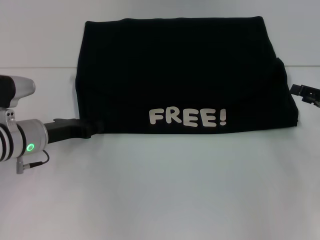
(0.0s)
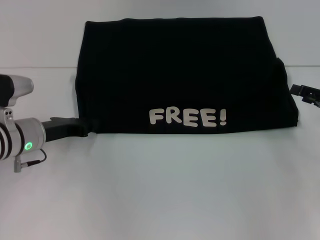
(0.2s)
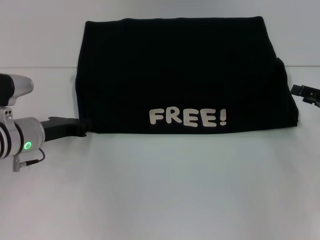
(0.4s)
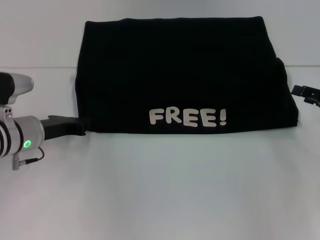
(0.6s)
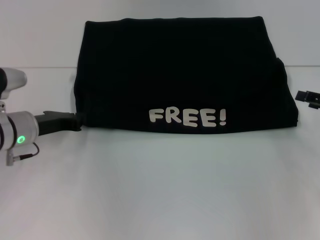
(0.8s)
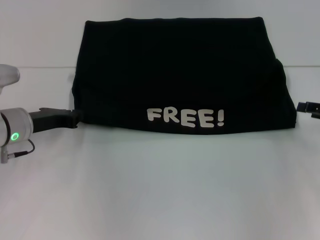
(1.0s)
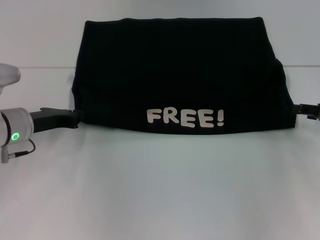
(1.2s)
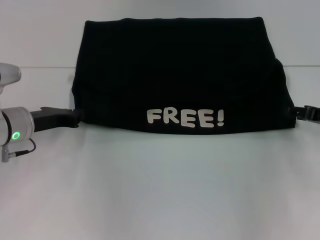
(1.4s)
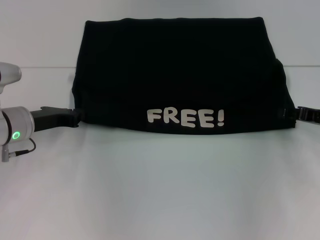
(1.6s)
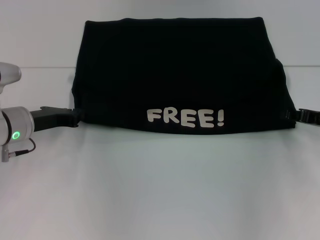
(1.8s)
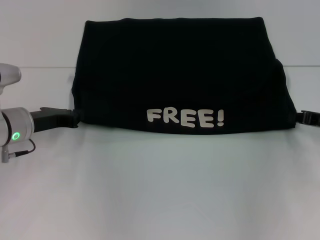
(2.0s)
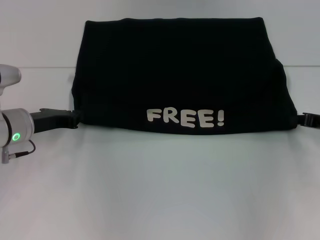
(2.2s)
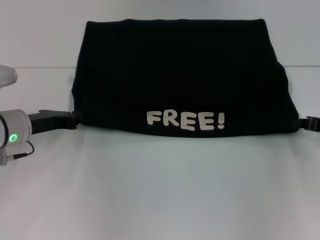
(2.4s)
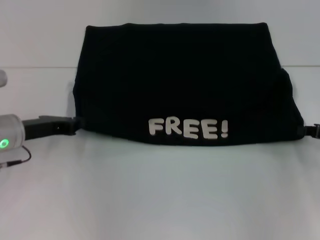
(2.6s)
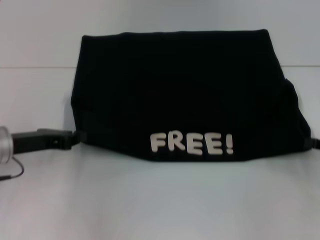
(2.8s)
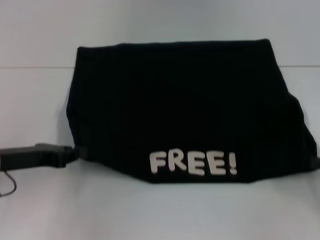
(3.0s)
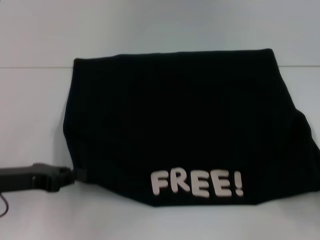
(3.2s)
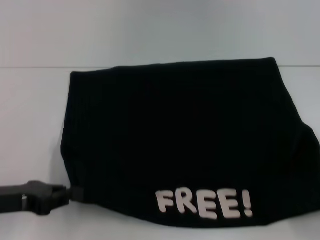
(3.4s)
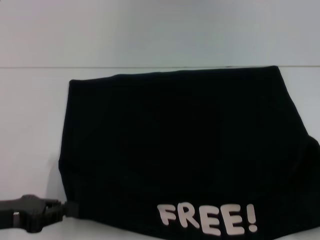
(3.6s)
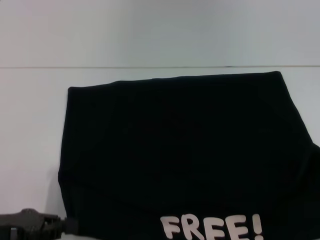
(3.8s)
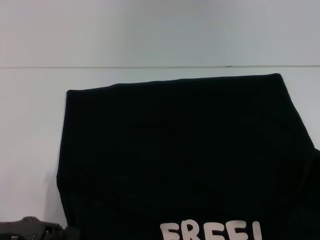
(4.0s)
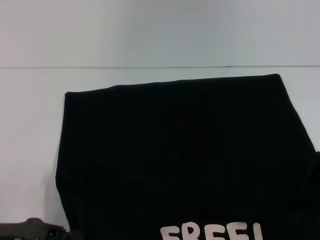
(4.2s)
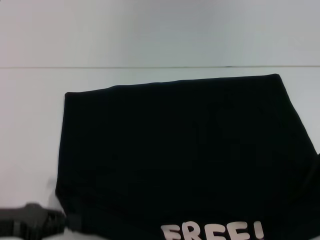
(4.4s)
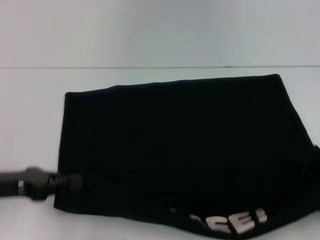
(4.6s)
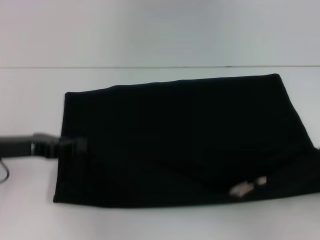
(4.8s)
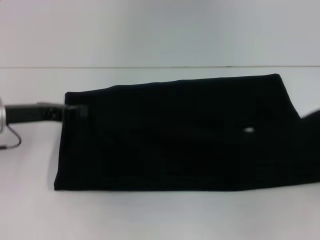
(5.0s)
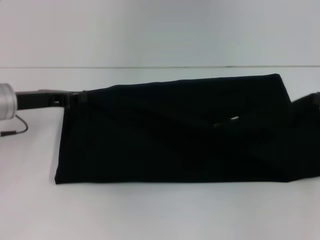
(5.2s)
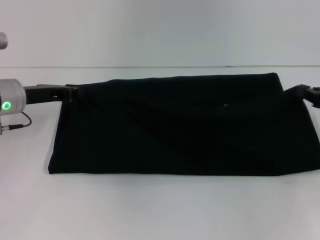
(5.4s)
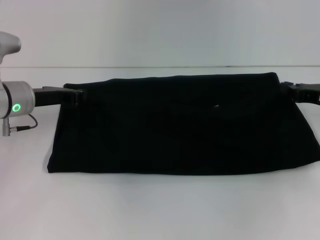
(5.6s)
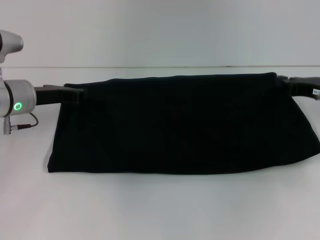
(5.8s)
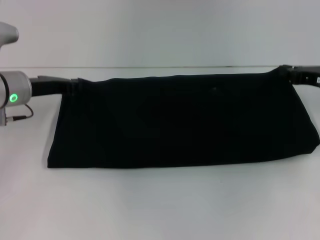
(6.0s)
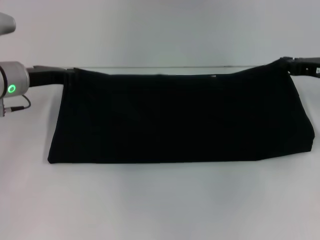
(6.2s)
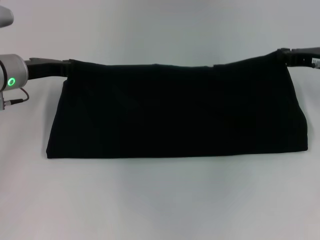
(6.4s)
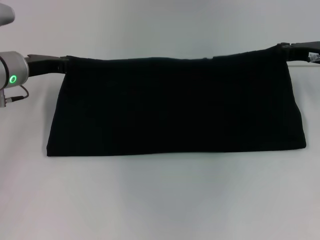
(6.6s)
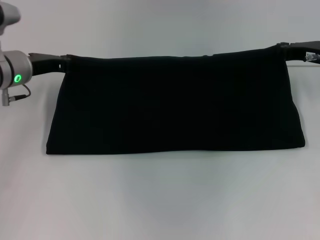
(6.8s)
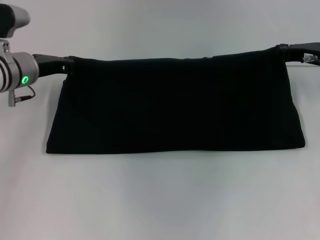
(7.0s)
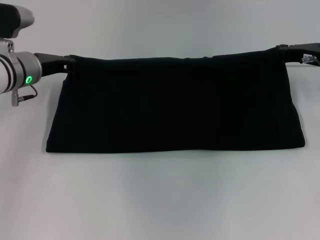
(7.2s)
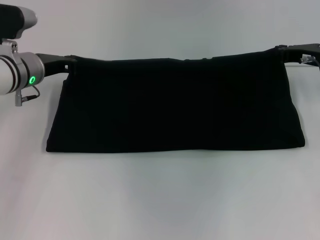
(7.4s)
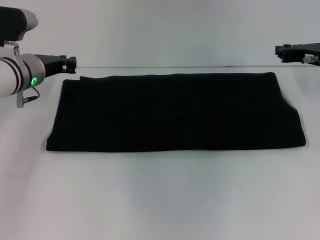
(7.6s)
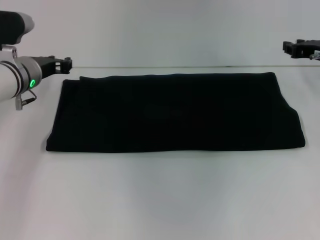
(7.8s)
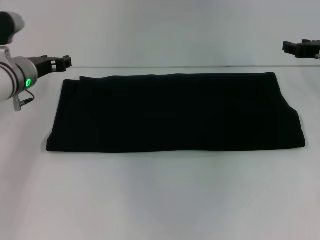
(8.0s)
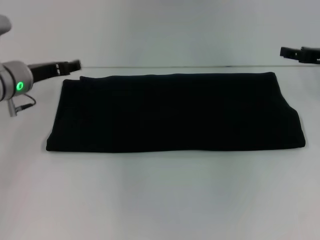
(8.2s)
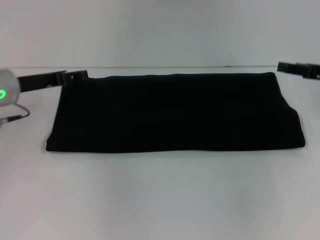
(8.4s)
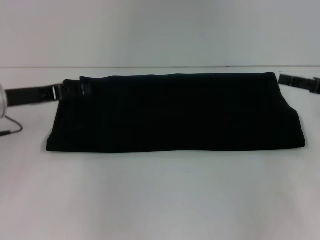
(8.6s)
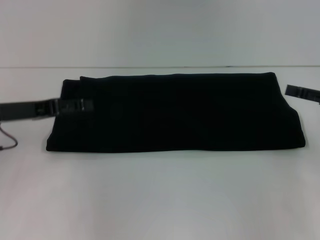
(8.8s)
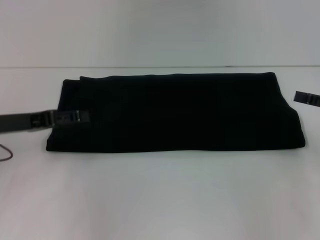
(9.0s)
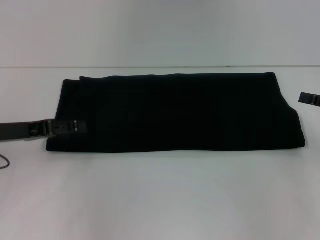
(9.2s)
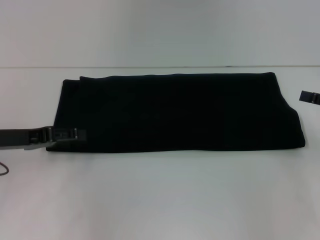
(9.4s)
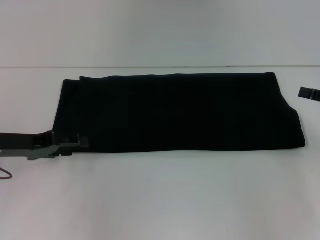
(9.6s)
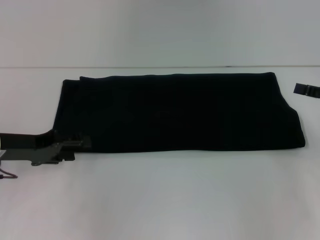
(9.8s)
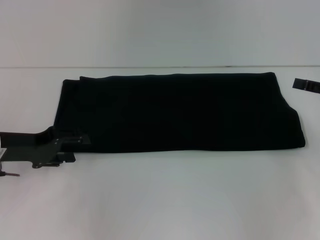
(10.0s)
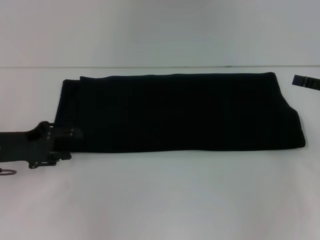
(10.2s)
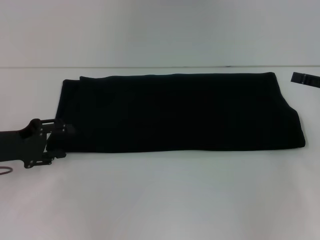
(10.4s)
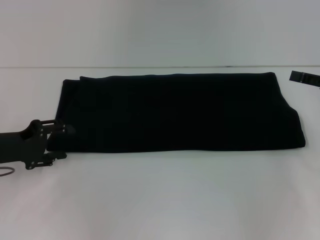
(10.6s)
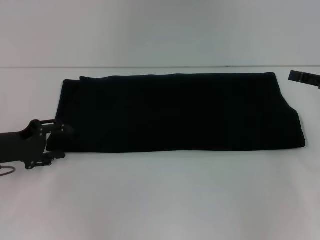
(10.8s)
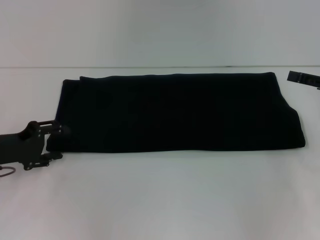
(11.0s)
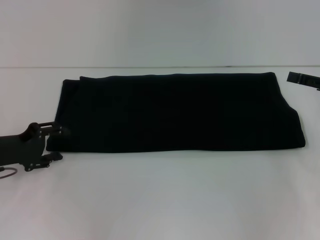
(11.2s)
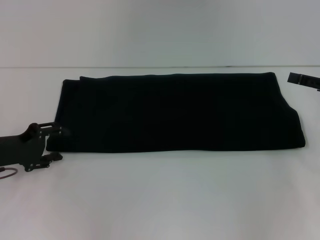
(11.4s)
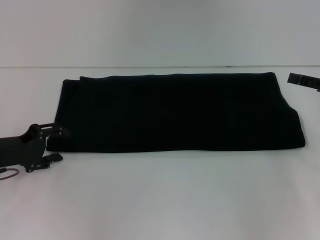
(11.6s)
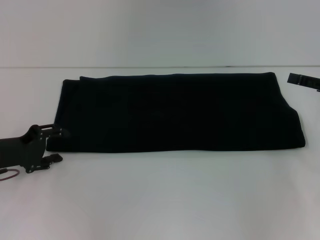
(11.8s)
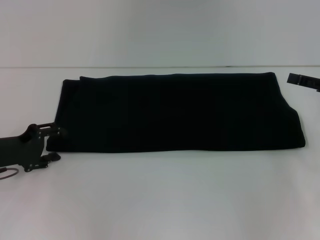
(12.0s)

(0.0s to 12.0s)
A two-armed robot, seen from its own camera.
Step, 0.0s - 3.8s: Pull the clothes with your left hand.
Step, 0.0s - 3.8s: Pull the clothes with your right hand.
Step, 4.0s - 8.0s: Fold the clothes with your right hand.
0.0s - 1.6s: The left gripper closes up.
1.6s - 3.0s: The left gripper is displaced backward by about 5 cm, while the right gripper goes roughly 10 cm backward and to the right, and closes up.
3.0s - 4.4s: Both grippers travel together backward, some 10 cm.
4.4s - 6.0s: The right gripper shifts about 25 cm forward and to the left. Meanwhile the left gripper shifts some 20 cm forward.
6.0s - 7.6s: The right gripper changes place by approximately 5 cm.
7.6s - 9.0s: The left gripper moves backward and to the left, some 15 cm, and opens its fingers; the right gripper moves backward and to the right, about 15 cm, and opens up.
10.4s - 12.0s: There are only small adjustments of the grippers.

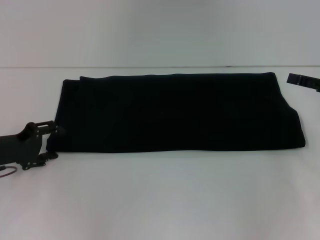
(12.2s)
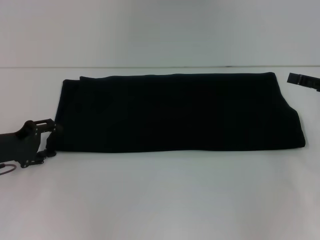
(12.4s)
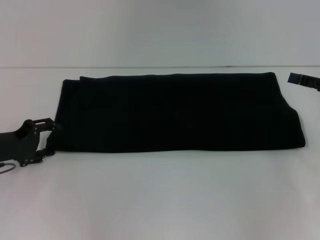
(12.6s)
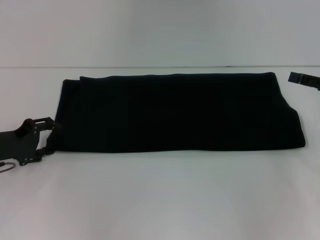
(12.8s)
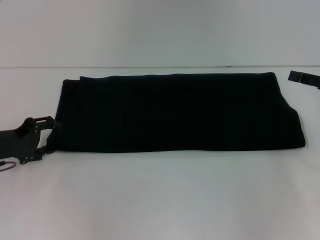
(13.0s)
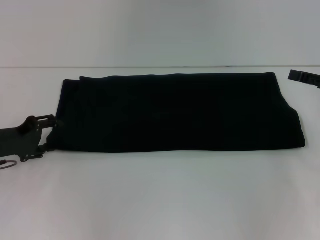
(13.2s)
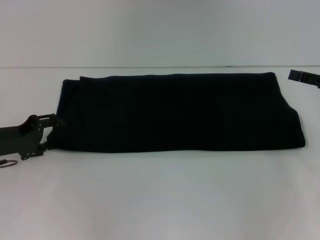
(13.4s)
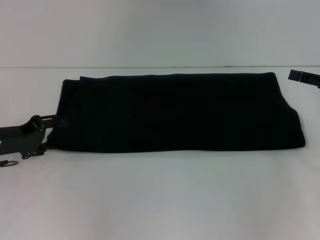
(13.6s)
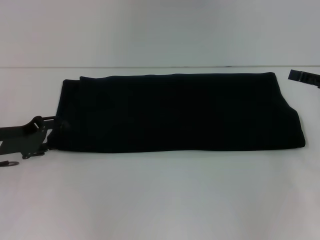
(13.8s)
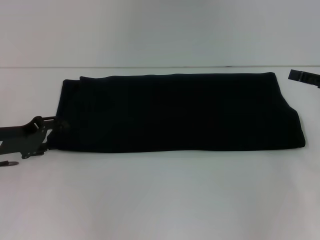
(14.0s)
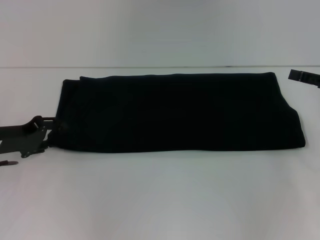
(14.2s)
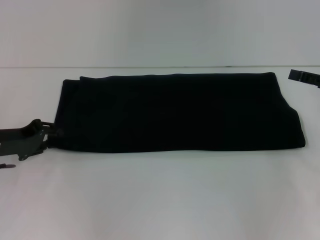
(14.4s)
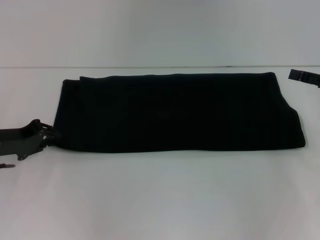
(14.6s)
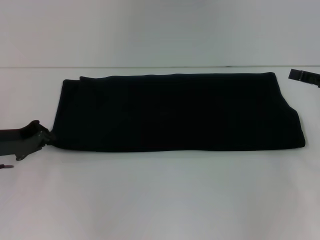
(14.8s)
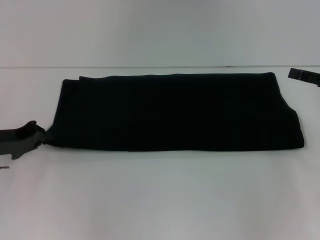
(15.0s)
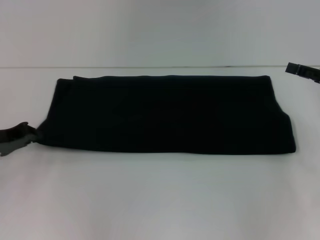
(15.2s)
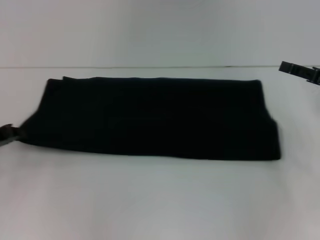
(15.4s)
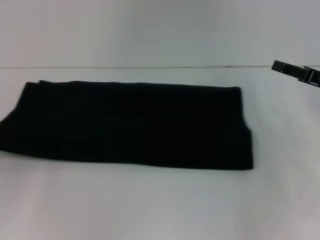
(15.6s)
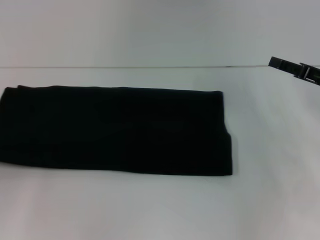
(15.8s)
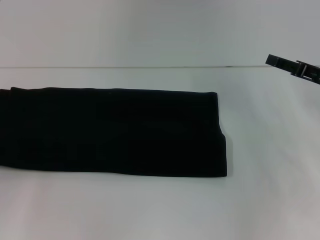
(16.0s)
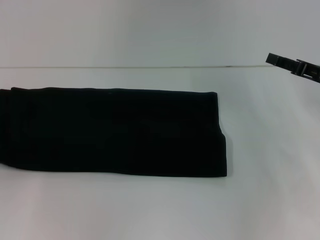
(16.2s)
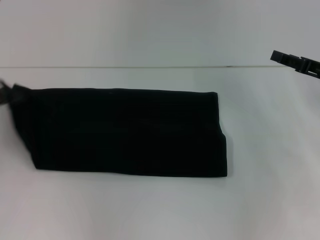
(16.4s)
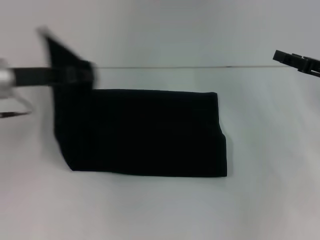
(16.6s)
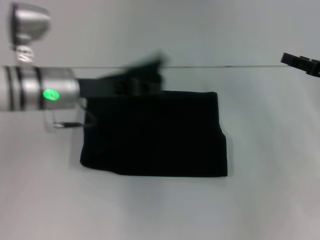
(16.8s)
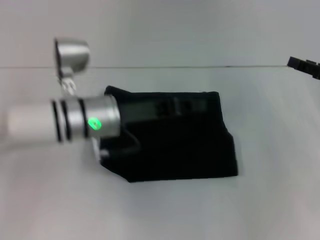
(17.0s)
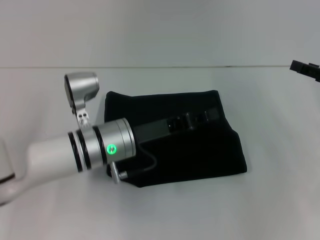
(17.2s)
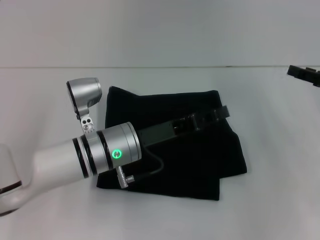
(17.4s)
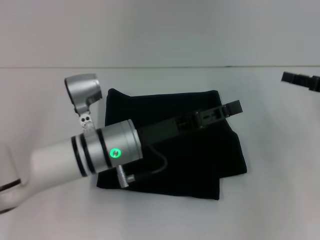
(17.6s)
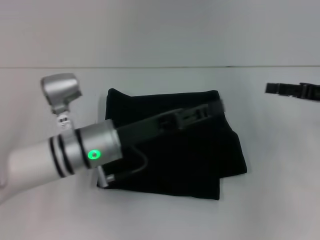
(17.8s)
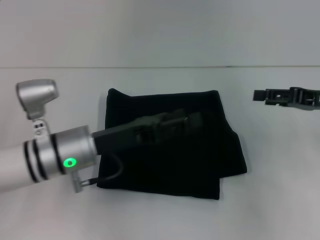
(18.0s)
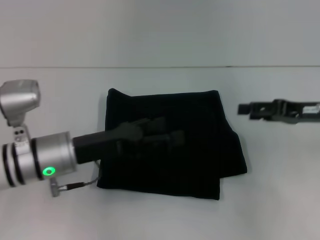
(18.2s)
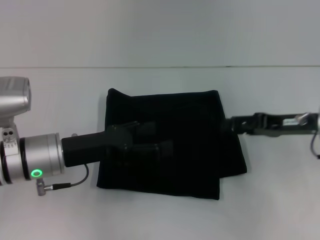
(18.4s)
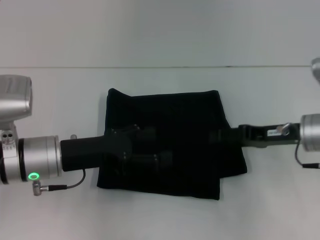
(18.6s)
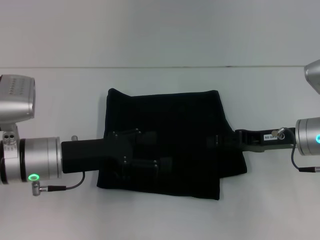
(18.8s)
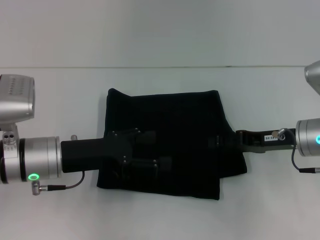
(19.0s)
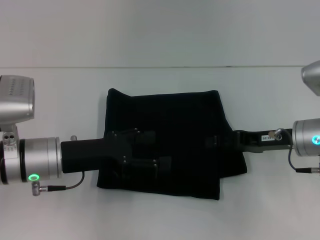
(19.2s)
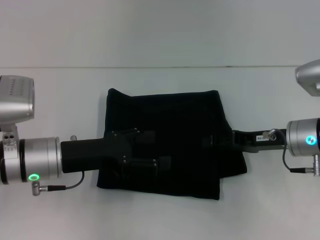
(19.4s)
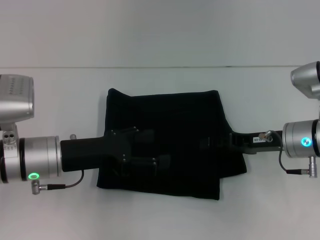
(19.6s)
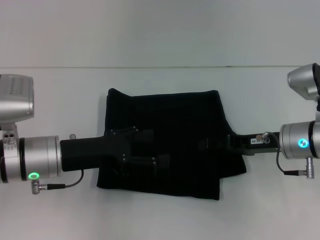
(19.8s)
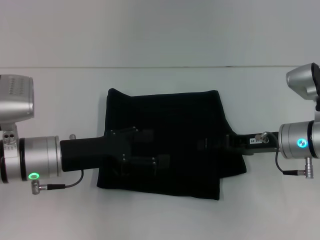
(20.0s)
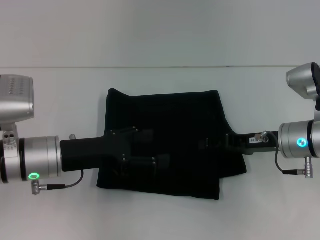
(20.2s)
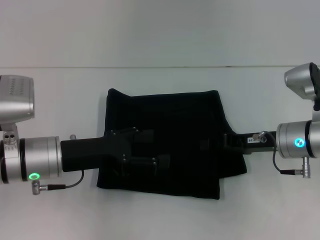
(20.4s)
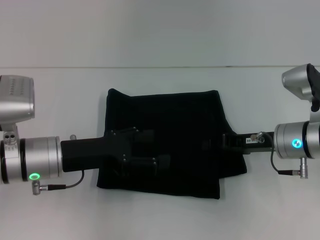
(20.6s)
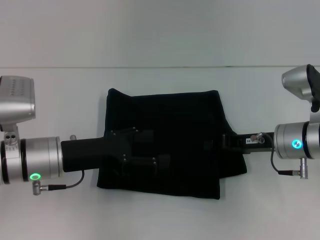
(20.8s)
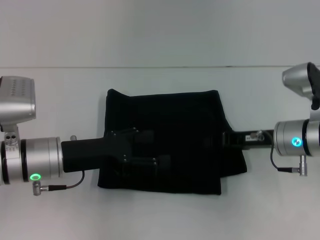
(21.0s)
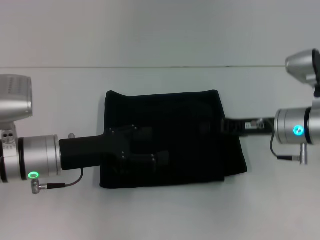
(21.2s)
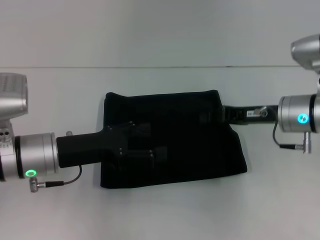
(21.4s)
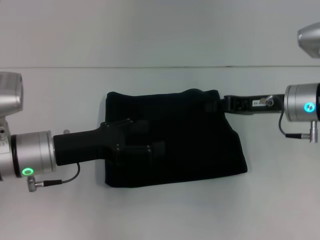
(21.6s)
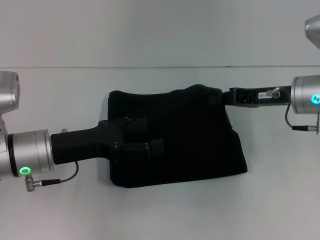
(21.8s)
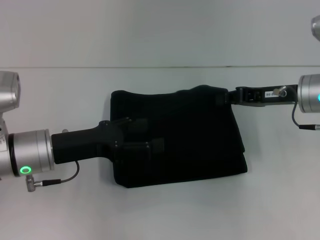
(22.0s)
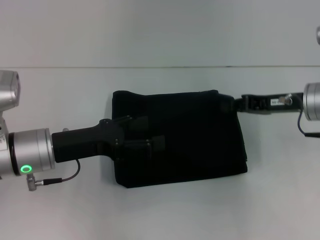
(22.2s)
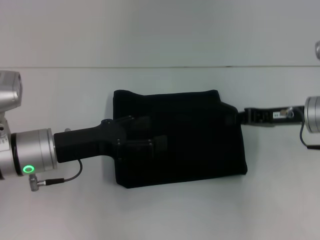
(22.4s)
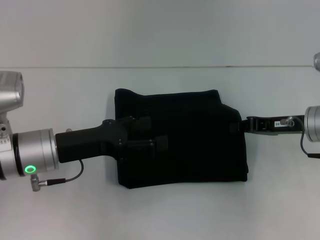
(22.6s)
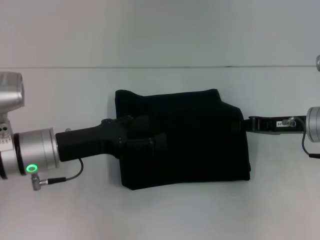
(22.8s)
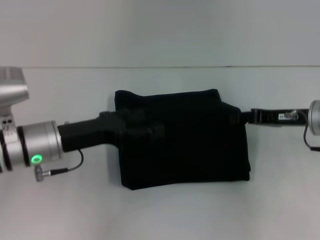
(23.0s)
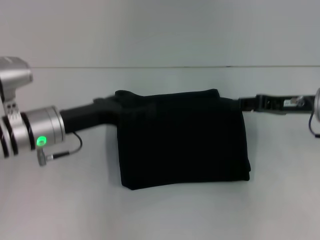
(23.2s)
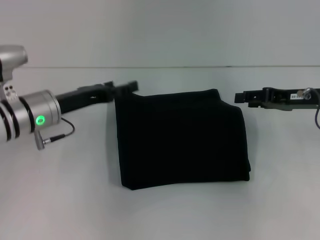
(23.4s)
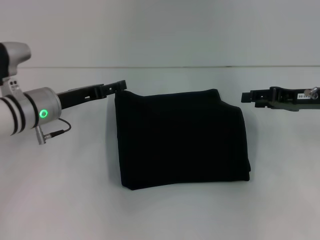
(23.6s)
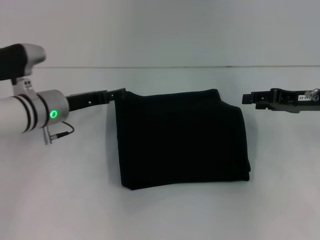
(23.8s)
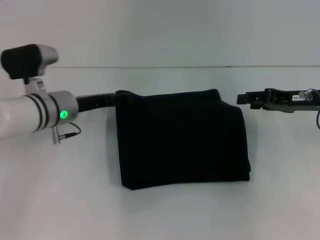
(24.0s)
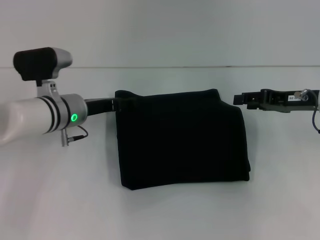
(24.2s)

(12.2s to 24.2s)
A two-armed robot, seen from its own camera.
Step, 12.2s - 18.0s: Fold the clothes with your left hand.
12.2s - 13.8s: The grippers stay close to where they were, moving slightly.
13.8s - 15.2s: The left gripper closes up.
15.2s - 16.6s: The left gripper is displaced upward and to the right by about 10 cm.
16.6s - 18.2s: The left gripper shifts approximately 15 cm downward, to the right and backward, and opens.
18.2s - 19.8s: The right gripper goes approximately 5 cm to the left.
19.8s - 21.2s: The right gripper closes.
21.2s - 22.6s: The grippers stay close to where they were, moving slightly.
22.6s - 24.2s: The left gripper shifts roughly 10 cm forward. The right gripper opens its fingers.
